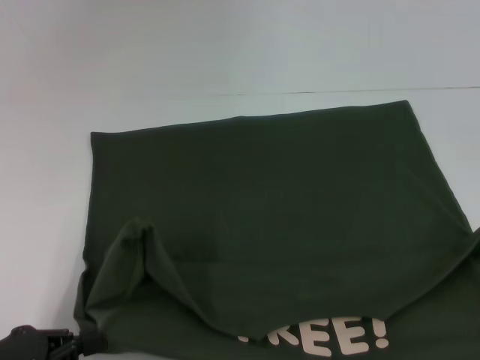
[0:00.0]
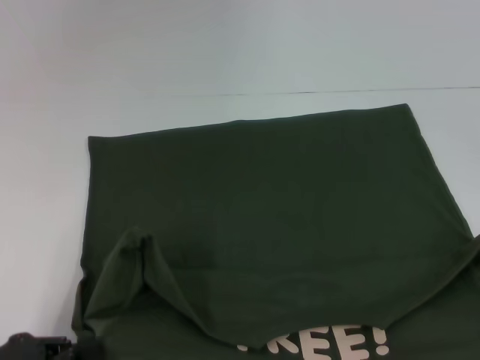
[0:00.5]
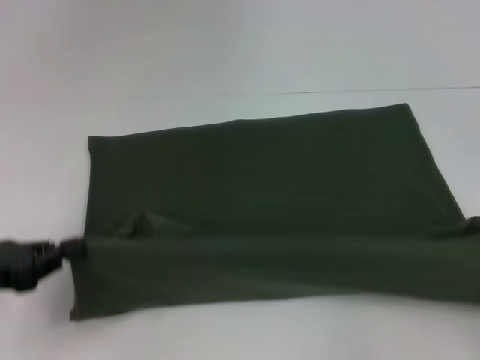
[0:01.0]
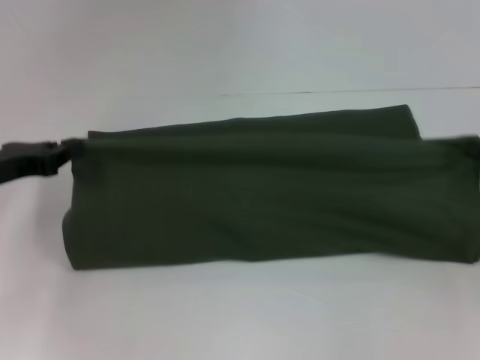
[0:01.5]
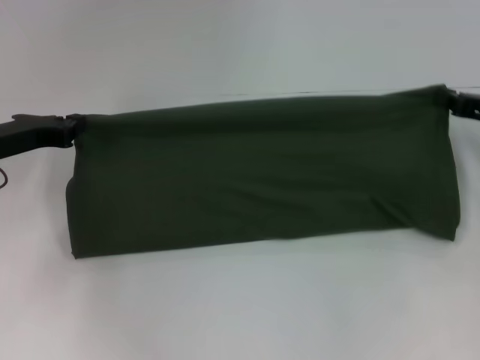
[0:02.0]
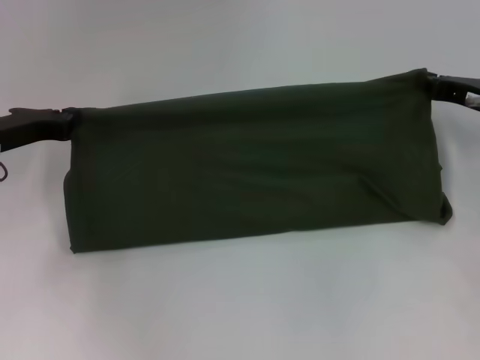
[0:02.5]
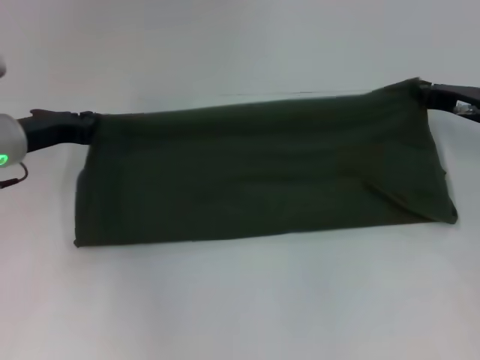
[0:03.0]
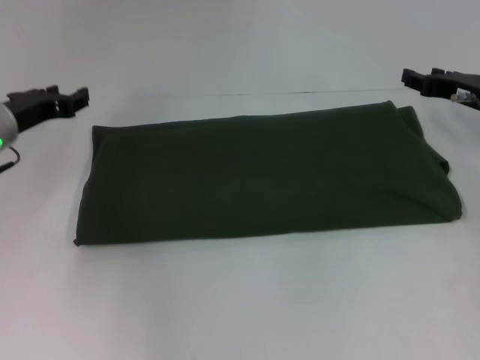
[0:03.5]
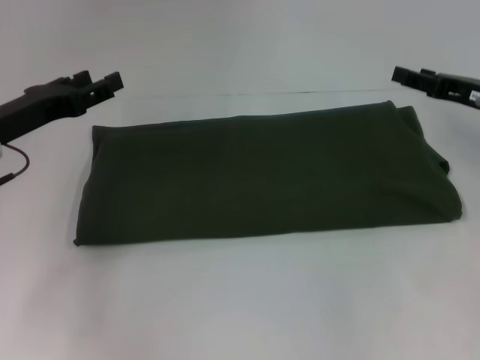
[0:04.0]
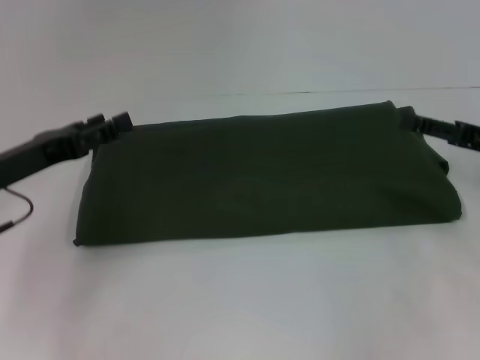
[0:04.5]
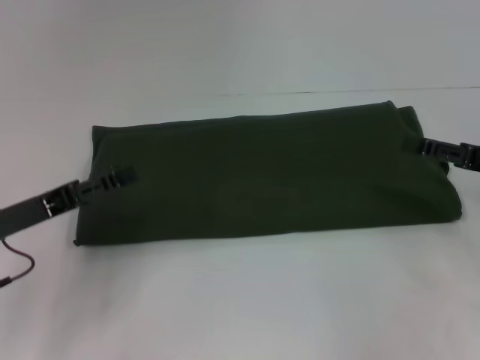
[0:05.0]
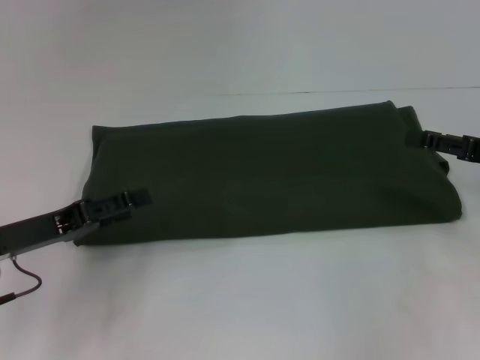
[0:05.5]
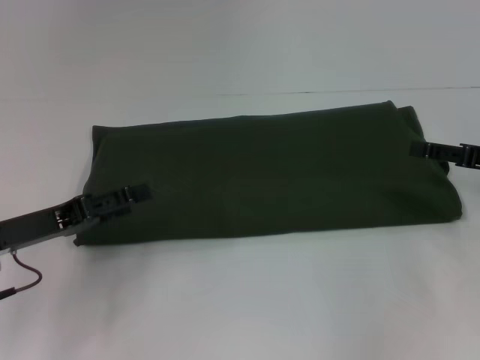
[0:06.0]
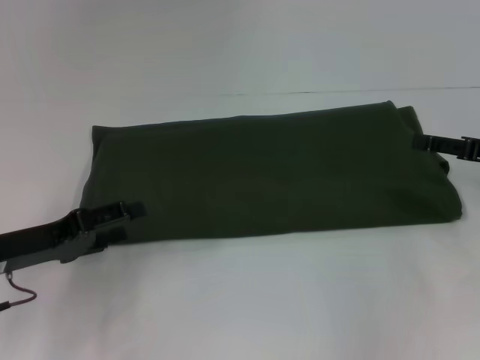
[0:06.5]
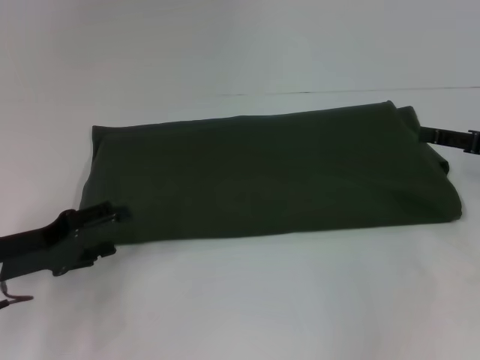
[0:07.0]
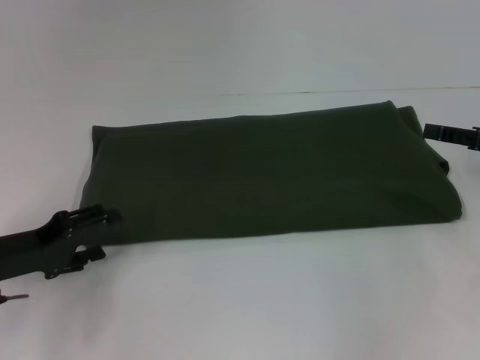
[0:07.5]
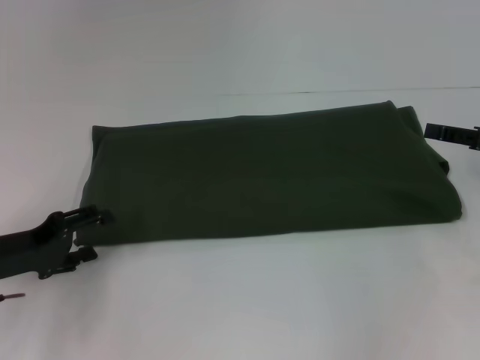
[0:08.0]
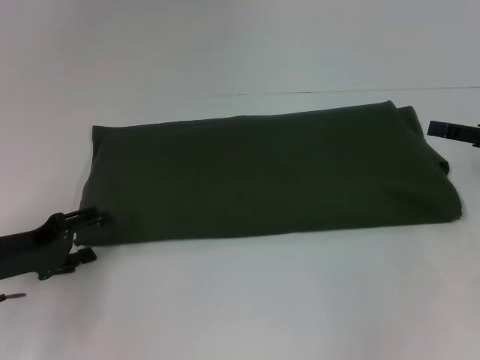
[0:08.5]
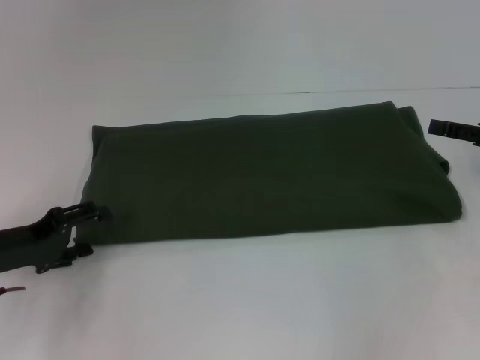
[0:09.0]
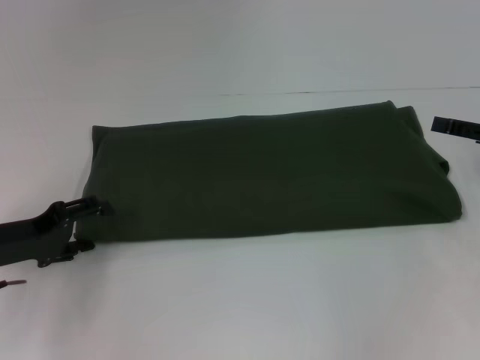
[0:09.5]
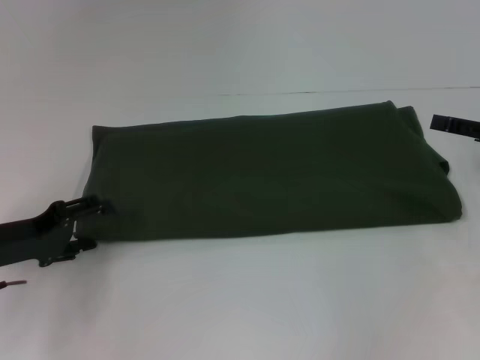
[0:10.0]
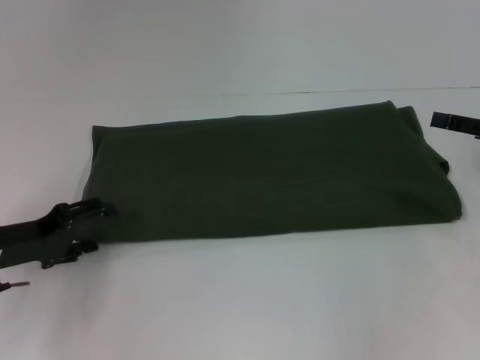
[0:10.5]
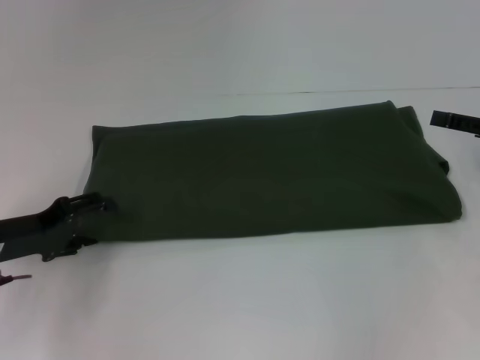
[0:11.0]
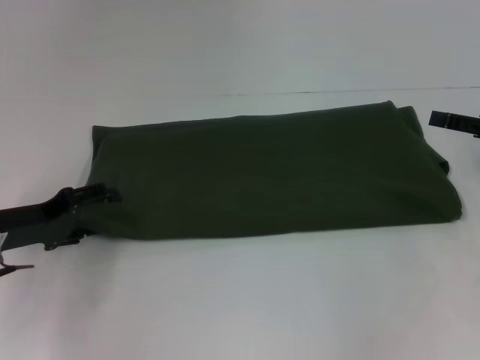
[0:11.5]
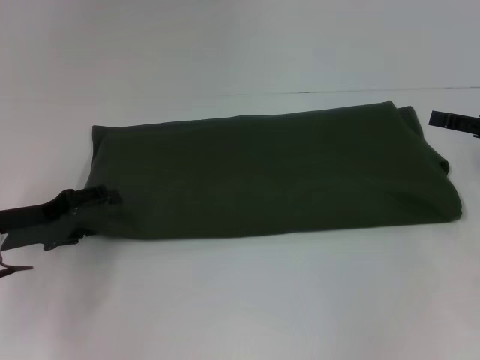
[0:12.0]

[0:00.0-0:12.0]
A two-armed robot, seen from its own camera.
Step, 0:00.5 to 0:03.0: Fold the clothes with your right hand.
0:00.0 to 0:02.0: Both grippers travel together forward, some 25 cm.
0:02.0 to 0:04.0: The right gripper opens. The left gripper opens up.
0:04.0 to 0:06.0: Both grippers travel together backward, approximately 5 cm.
0:08.0 to 0:12.0: There are only small adjustments of the grippers.

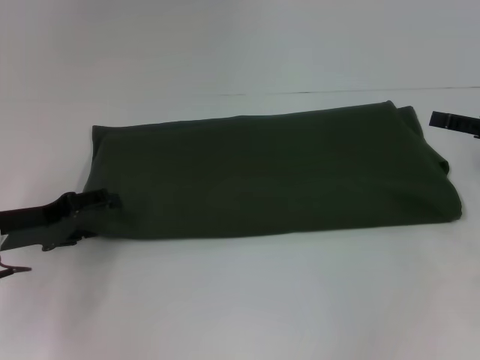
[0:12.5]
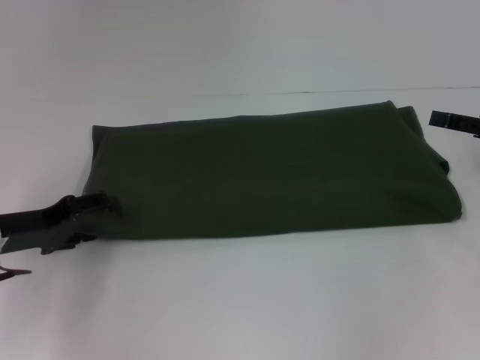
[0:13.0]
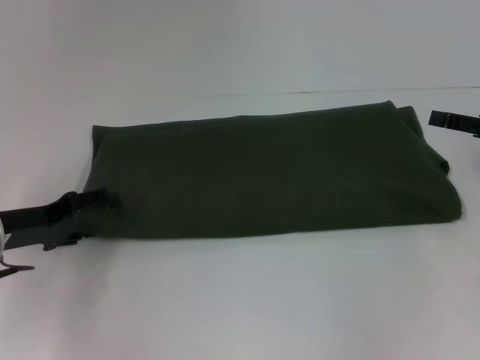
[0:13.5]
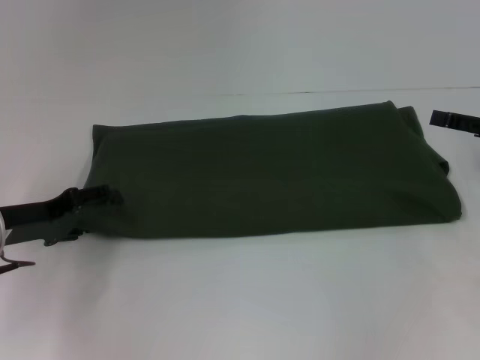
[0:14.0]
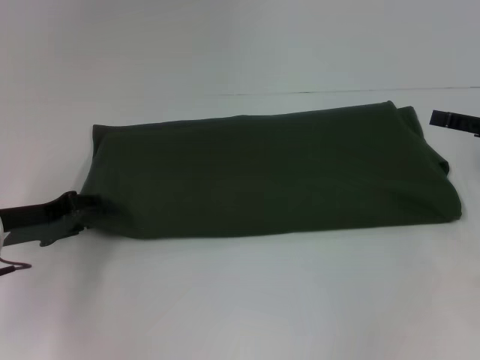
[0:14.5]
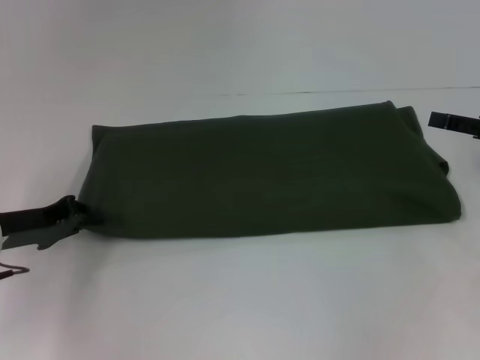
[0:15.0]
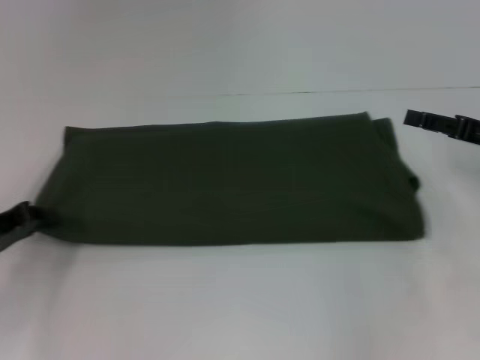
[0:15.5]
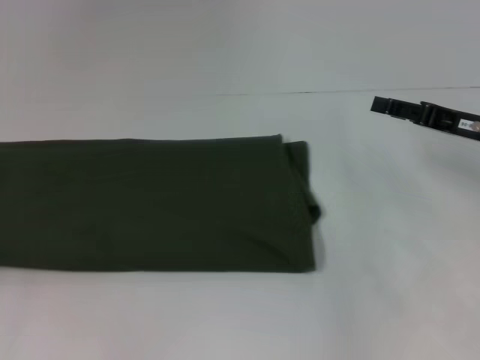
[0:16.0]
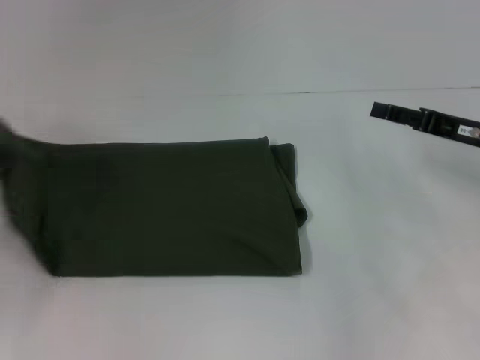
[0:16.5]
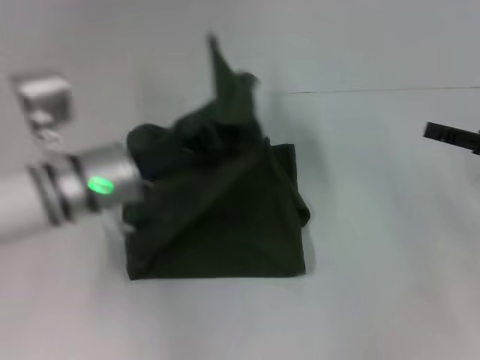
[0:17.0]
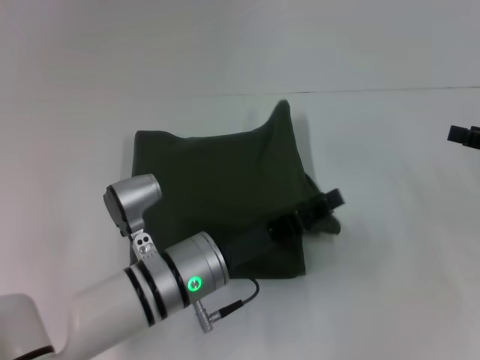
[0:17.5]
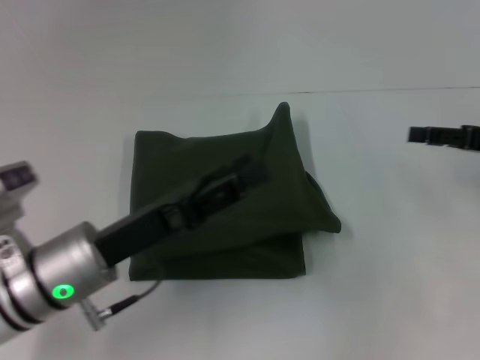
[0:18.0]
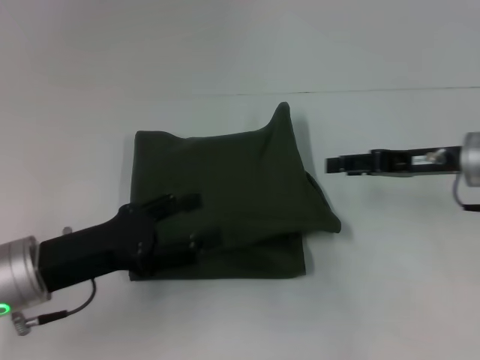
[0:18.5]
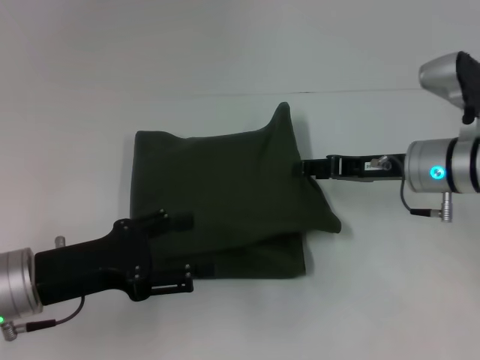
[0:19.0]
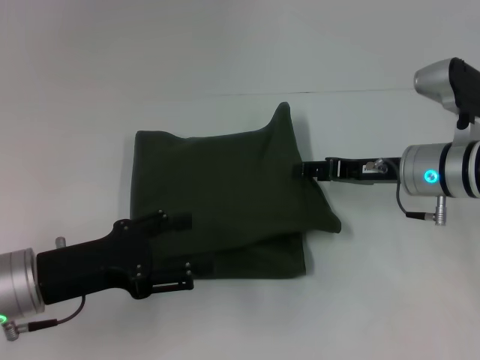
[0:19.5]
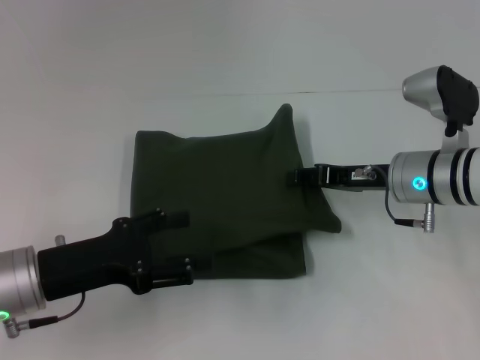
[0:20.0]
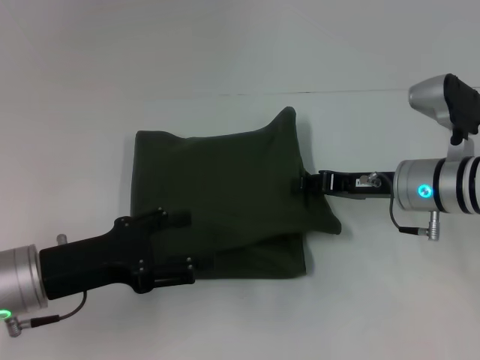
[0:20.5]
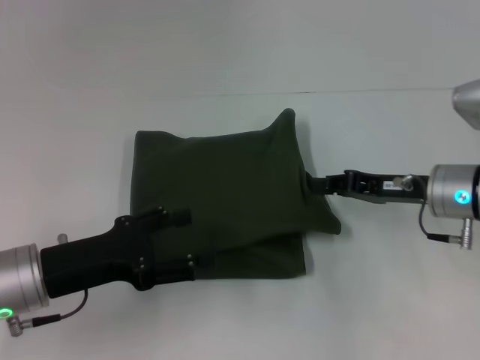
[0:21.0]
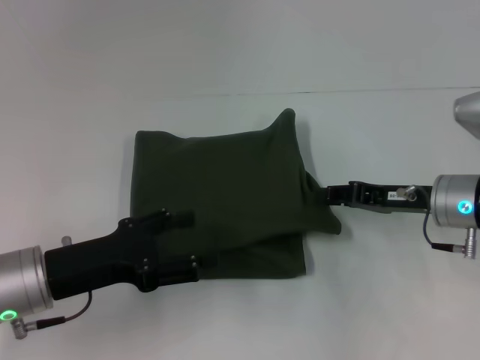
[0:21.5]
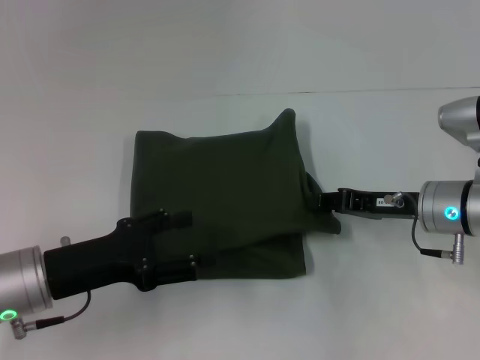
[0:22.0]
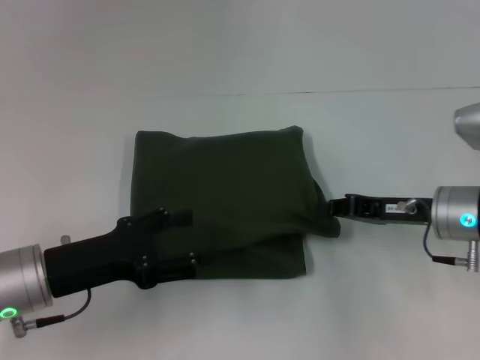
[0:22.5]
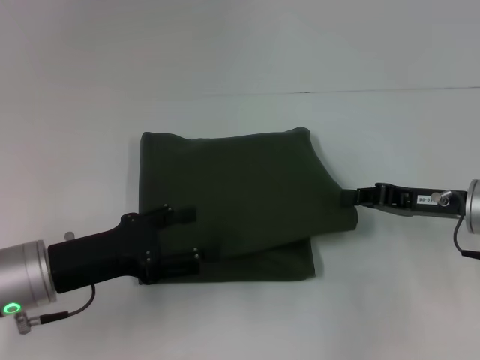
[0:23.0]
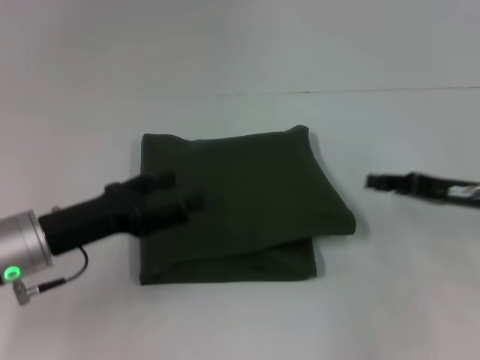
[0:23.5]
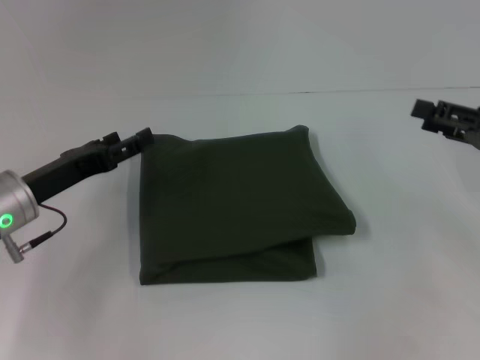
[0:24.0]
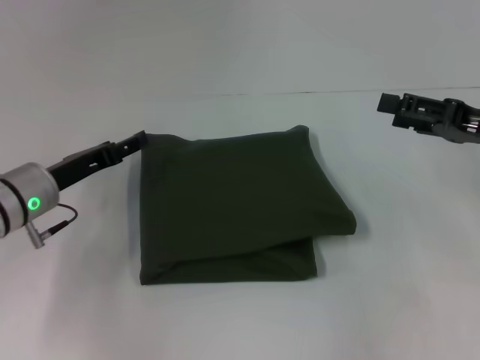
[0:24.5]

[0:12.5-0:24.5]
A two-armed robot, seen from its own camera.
Step, 0:12.5 to 0:17.5: Fold the clothes with your left hand.
0:12.5 to 0:14.5: Neither gripper changes place.
0:14.5 to 0:16.5: The left gripper travels to the left and upward by about 10 cm, and closes up, while the right gripper goes about 5 cm to the left.
0:16.5 to 0:18.5: The left gripper shifts approximately 15 cm to the right, and opens its fingers. Meanwhile the right gripper goes to the right and returns, approximately 10 cm each way.
0:18.5 to 0:20.5: The right gripper goes some 5 cm to the left.
0:20.5 to 0:22.5: The right gripper closes its fingers.
0:22.5 to 0:24.5: The right gripper is displaced upward and to the right by some 10 cm, and opens up. The left gripper travels forward by roughly 10 cm.

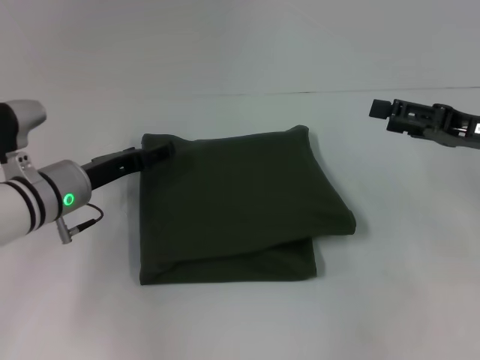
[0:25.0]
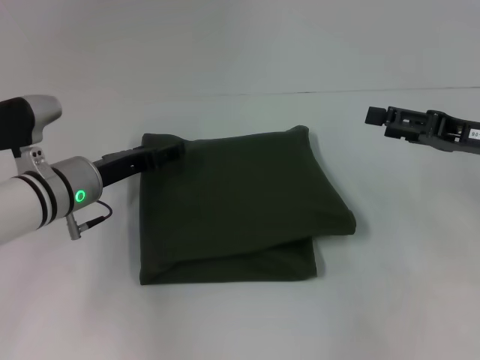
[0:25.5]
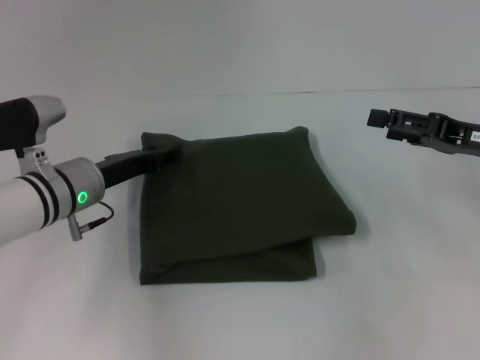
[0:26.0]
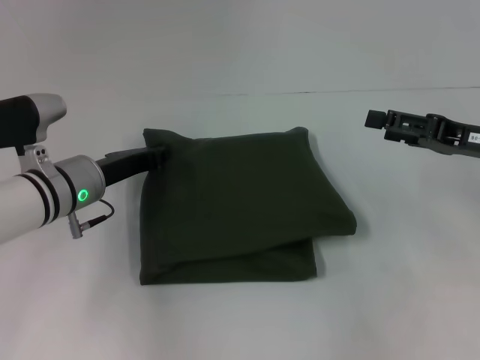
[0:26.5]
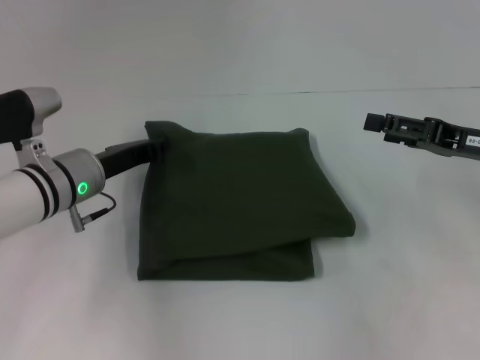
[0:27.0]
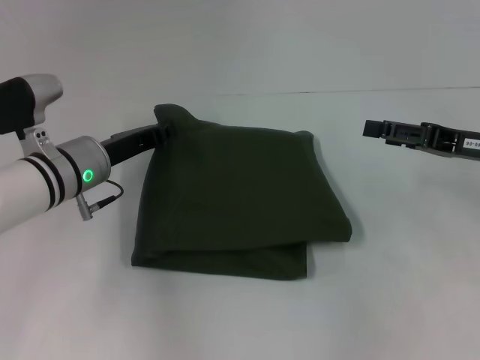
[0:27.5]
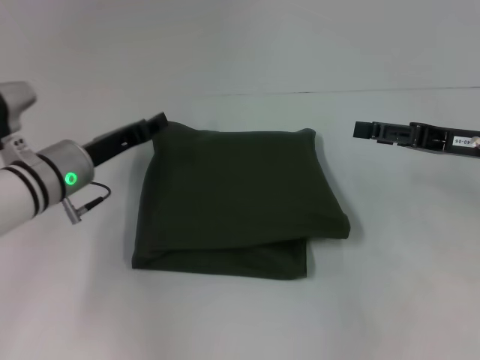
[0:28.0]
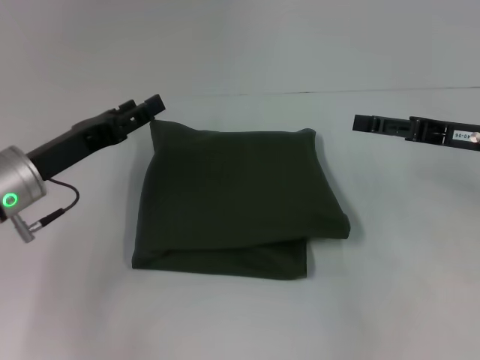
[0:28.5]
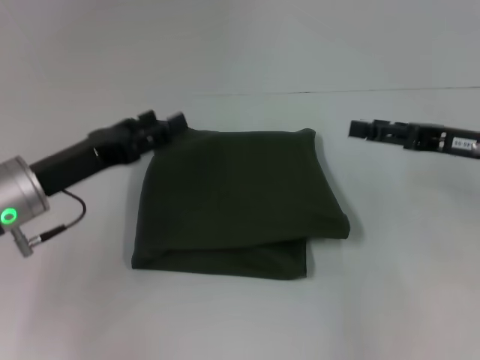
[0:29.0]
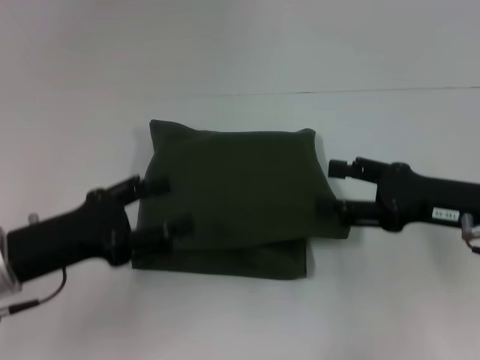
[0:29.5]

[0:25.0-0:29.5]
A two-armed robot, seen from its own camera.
0:25.0 to 0:27.0: The left gripper closes up.
0:27.0 to 0:29.5: The right gripper changes place by some 5 cm. Meanwhile the left gripper goes roughly 15 cm backward and to the left, and opens its fingers.
